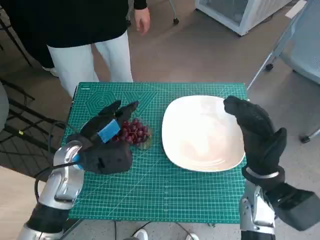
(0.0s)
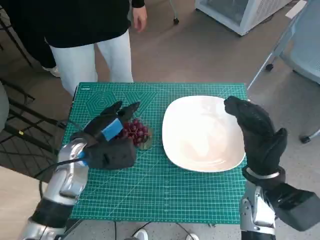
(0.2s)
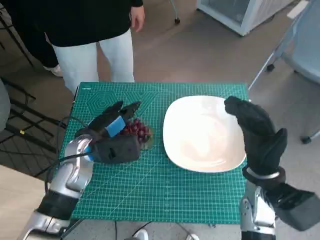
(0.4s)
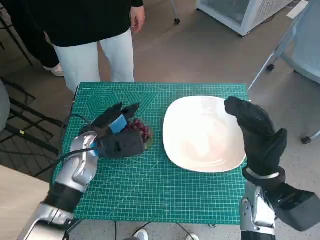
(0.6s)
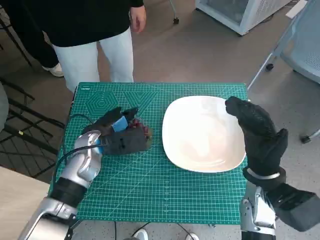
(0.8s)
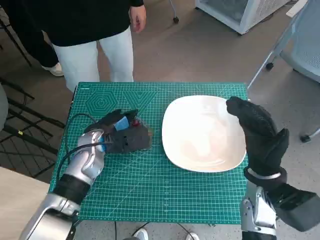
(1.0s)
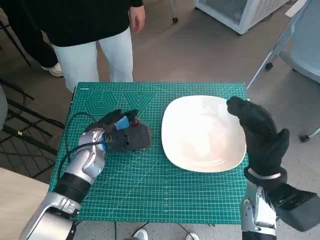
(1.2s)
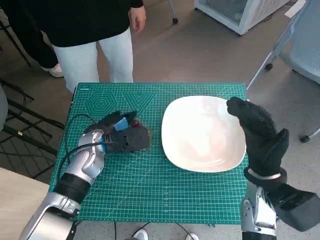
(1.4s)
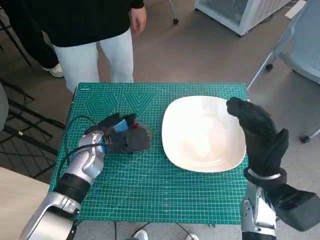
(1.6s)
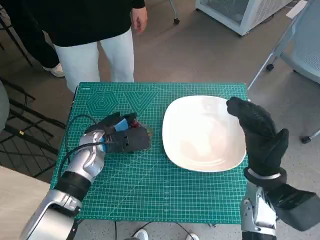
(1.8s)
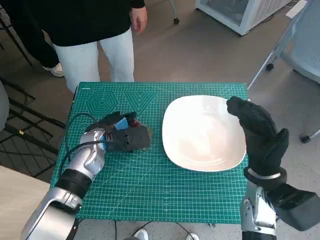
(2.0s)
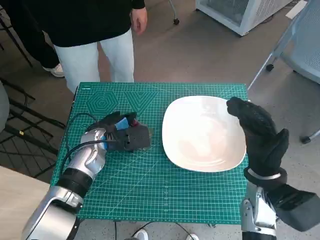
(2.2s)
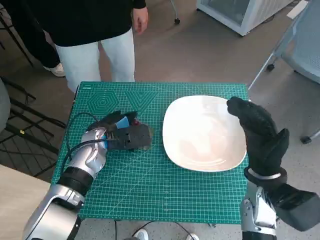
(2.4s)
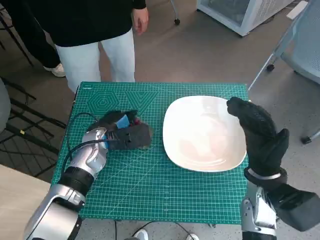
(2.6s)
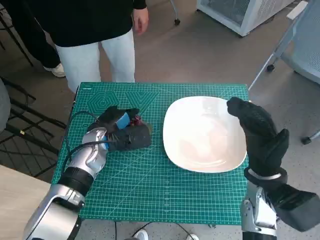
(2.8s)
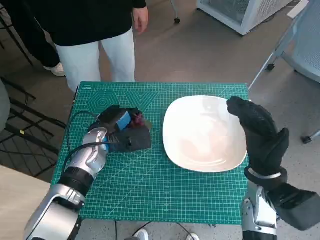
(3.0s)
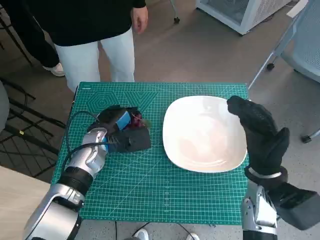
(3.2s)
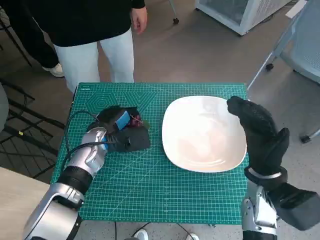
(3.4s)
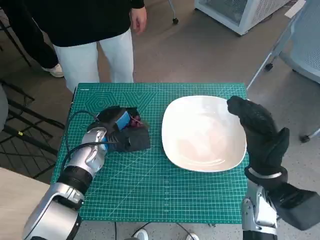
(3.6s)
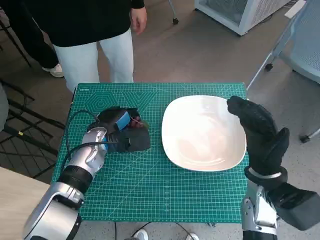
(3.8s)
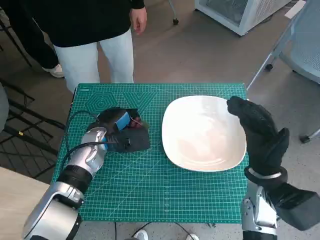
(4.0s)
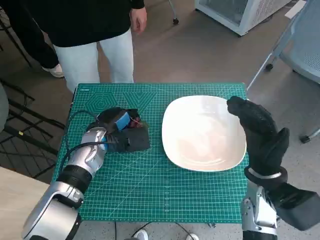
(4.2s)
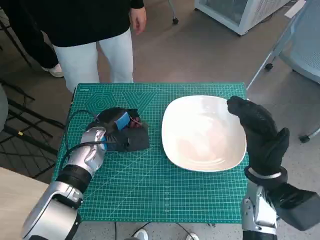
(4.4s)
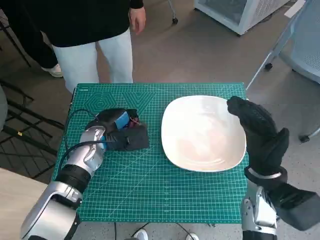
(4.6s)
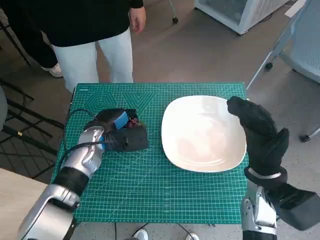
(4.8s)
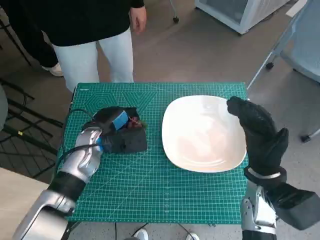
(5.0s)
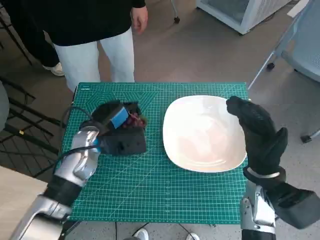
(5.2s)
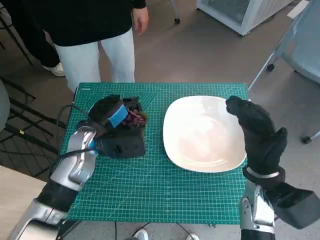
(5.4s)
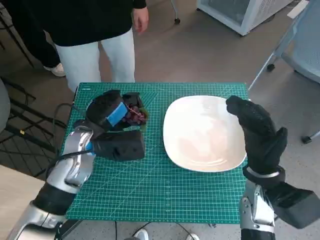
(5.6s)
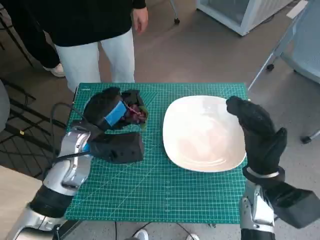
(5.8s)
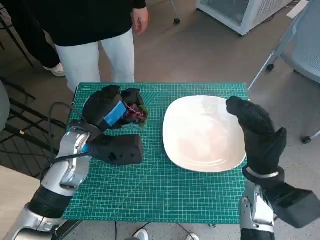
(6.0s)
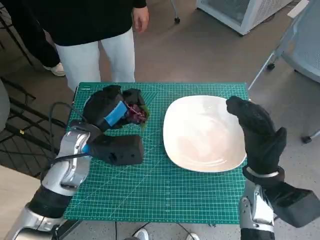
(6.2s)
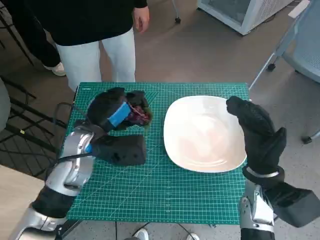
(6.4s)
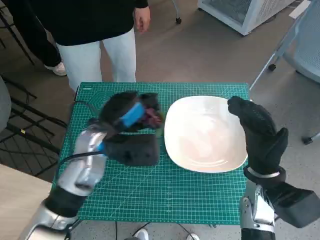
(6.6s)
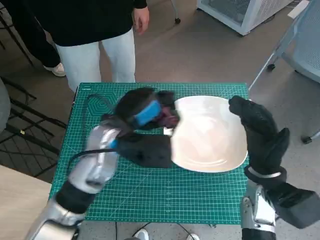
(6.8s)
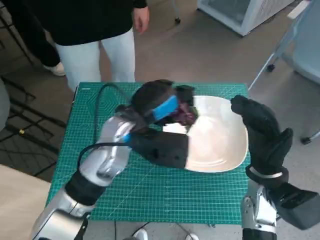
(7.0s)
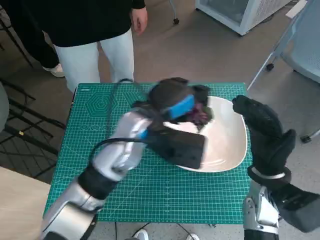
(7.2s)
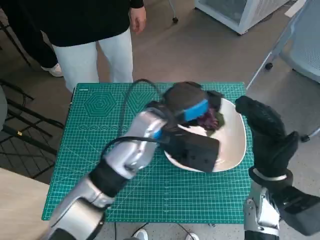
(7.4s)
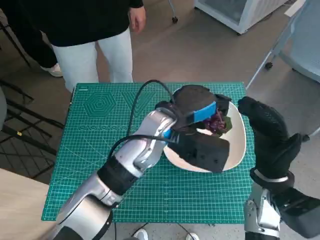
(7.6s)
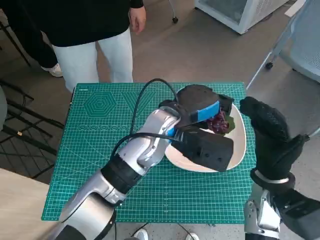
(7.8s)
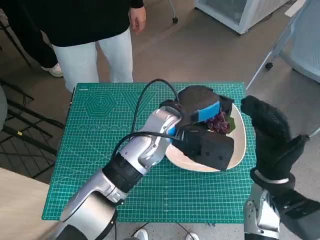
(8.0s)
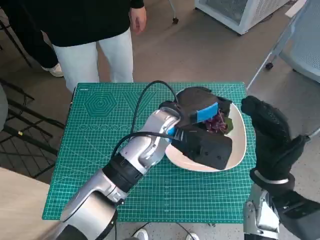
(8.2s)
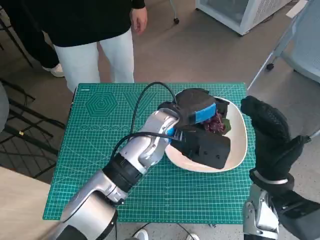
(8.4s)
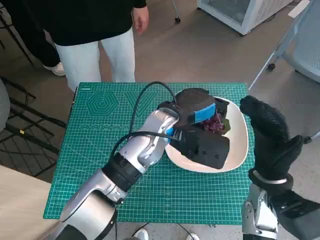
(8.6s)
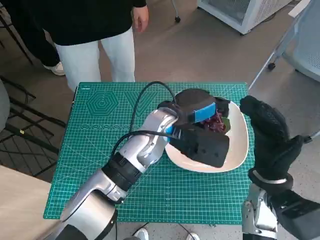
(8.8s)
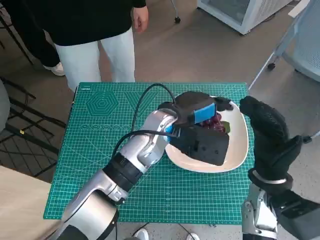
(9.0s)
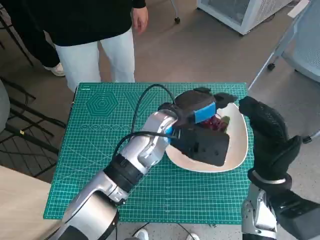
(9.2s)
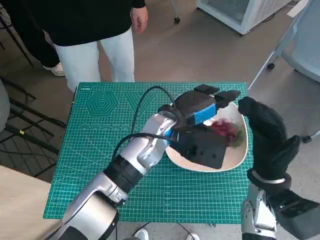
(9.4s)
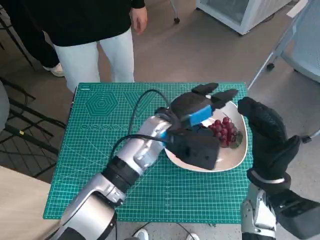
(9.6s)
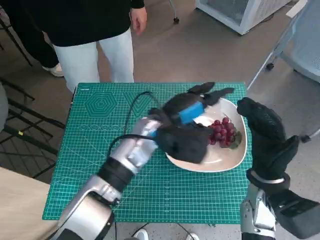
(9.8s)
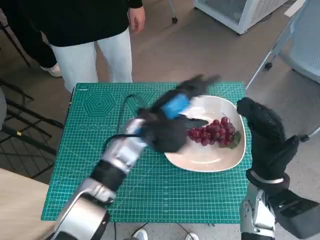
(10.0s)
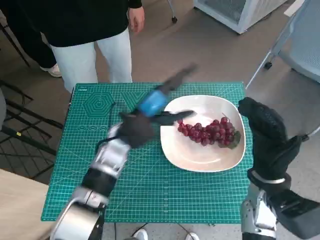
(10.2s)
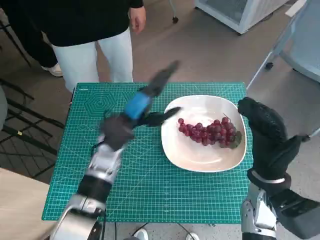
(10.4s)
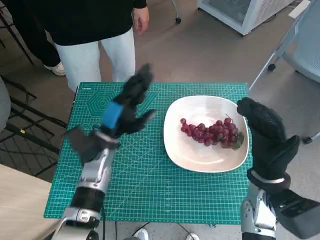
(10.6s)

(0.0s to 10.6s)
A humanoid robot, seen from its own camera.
Task of the whole recording: Pick up the grapes and put them on the plate.
Step, 0.0s - 3.0s: Grasp the grapes with left hand.
Step, 3.2s - 9.6s: Place the grapes in the plate with left hand.
0.0s - 1.6s: The left hand is displaced forward by approximately 5 cm.
1.6s - 3.0s: The hands stay close to where they were, moving slightly.
3.0s - 4.6s: The two hands keep their place.
4.6s - 6.0s: The left hand is displaced upward by roughly 5 cm.
6.0s - 7.6s: The left hand goes some 15 cm to the right.
7.6s - 9.0s: The hands make only small movements.
9.0s - 10.6s: The left hand moves to the left and downward, some 15 cm.

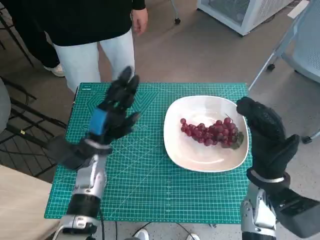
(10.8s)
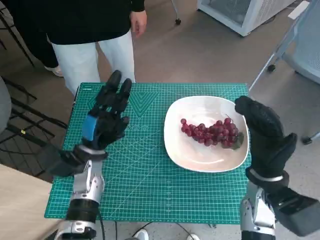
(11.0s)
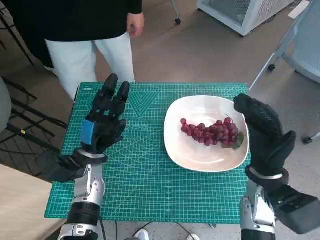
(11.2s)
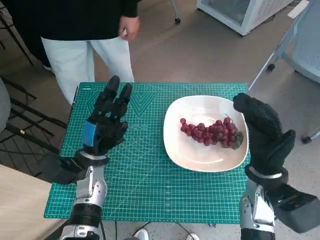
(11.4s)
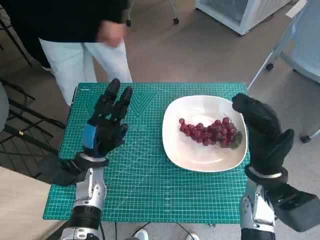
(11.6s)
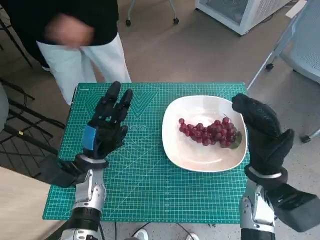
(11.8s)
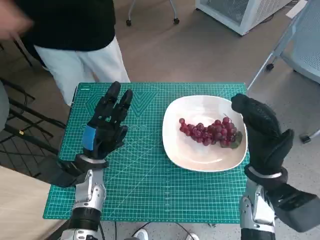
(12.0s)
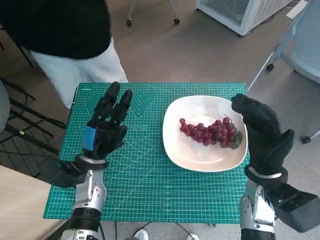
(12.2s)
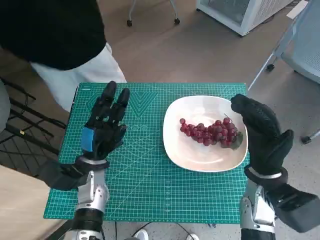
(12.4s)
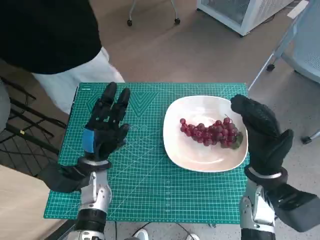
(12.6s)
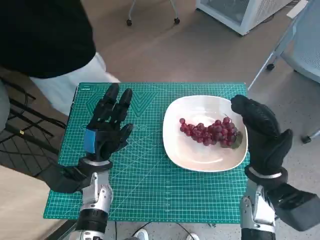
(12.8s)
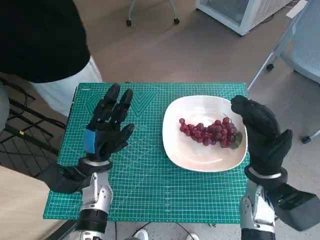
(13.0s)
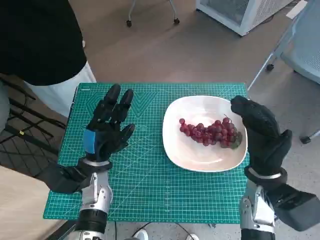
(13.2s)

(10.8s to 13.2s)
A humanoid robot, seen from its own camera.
Task of the whole recording: Pick up the grapes and put them on the plate.
10.8s - 13.2s: The hands move only a little.

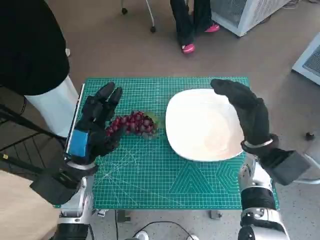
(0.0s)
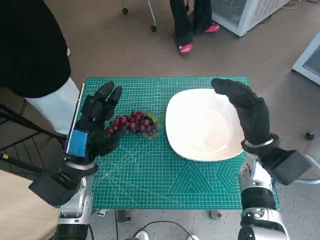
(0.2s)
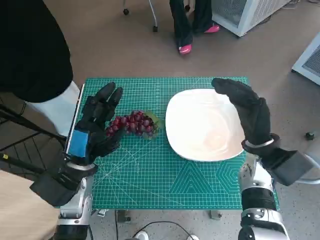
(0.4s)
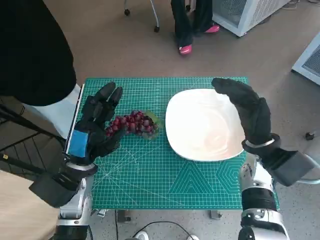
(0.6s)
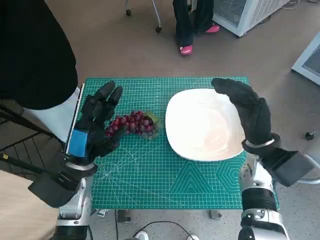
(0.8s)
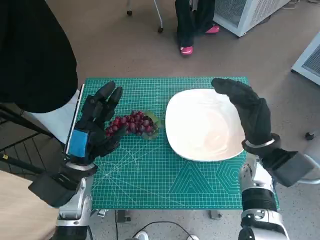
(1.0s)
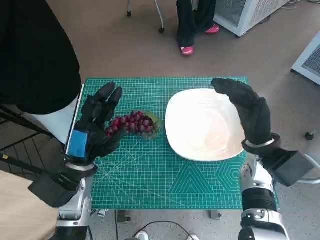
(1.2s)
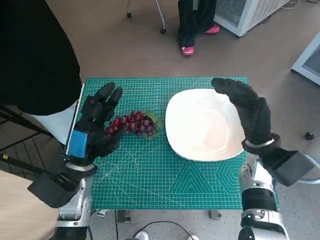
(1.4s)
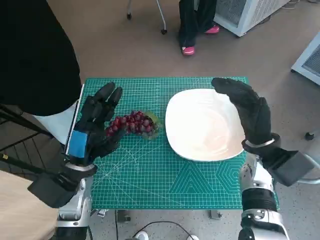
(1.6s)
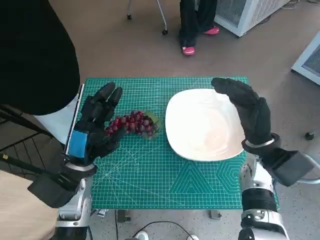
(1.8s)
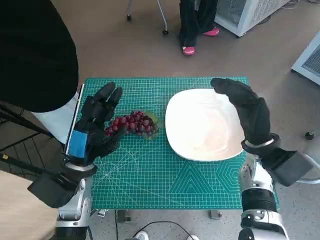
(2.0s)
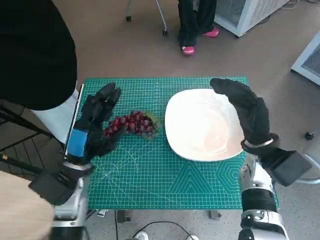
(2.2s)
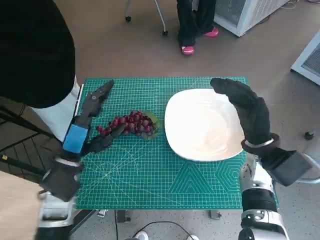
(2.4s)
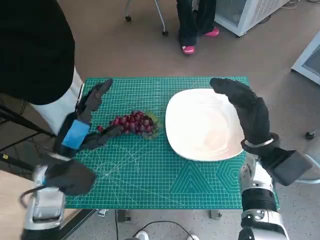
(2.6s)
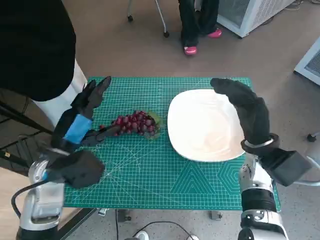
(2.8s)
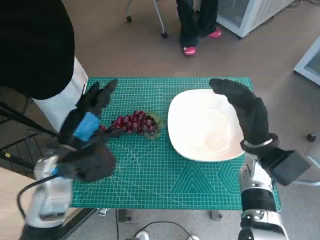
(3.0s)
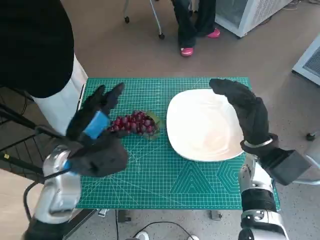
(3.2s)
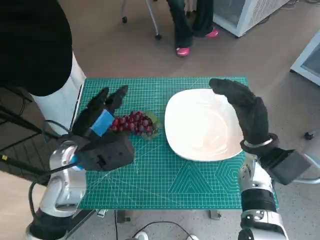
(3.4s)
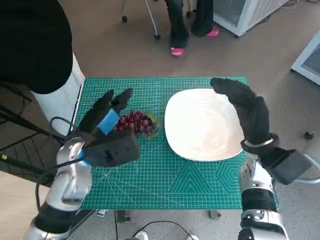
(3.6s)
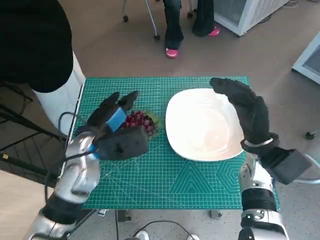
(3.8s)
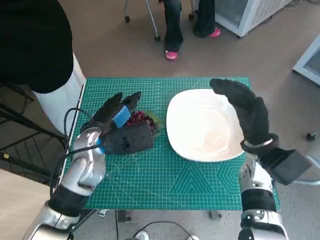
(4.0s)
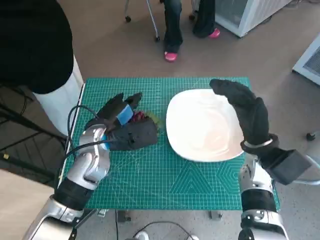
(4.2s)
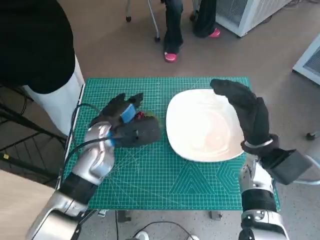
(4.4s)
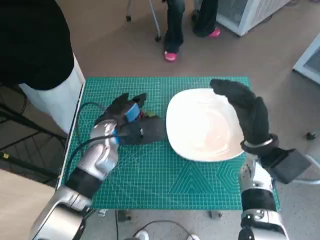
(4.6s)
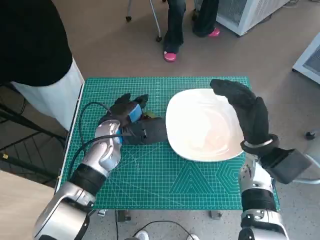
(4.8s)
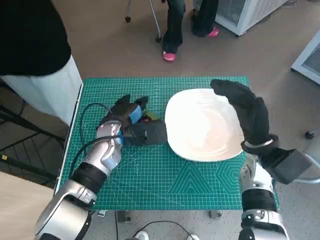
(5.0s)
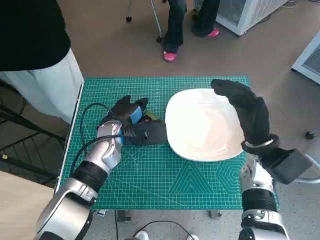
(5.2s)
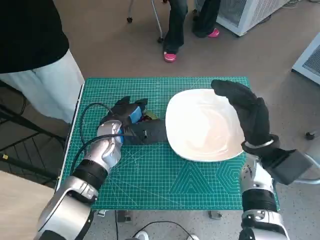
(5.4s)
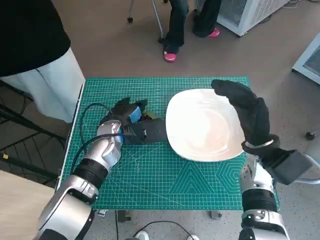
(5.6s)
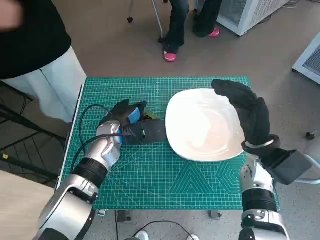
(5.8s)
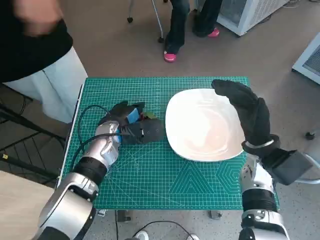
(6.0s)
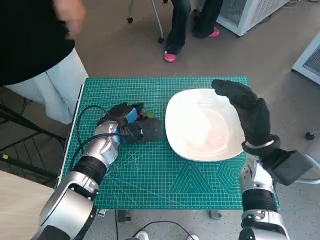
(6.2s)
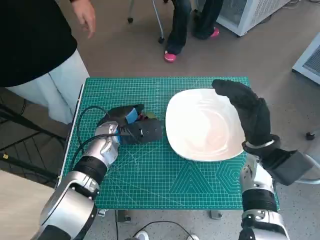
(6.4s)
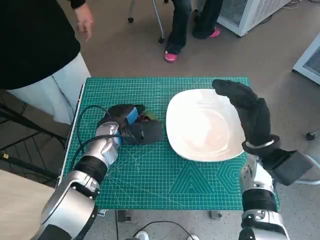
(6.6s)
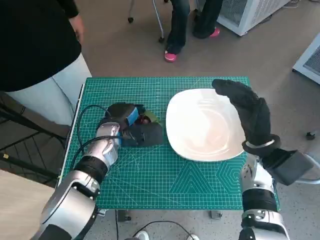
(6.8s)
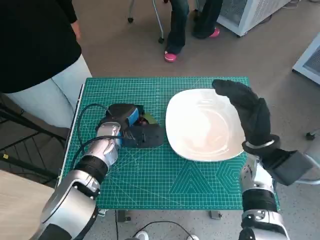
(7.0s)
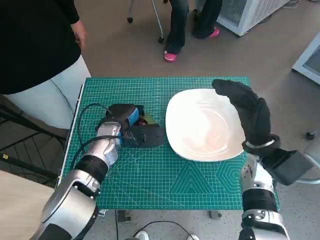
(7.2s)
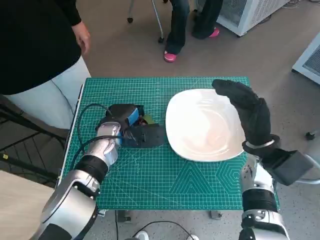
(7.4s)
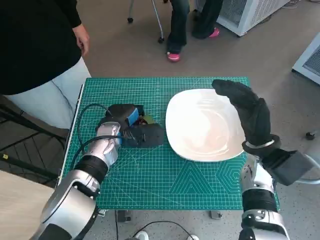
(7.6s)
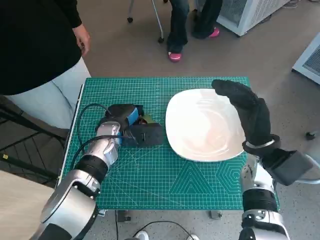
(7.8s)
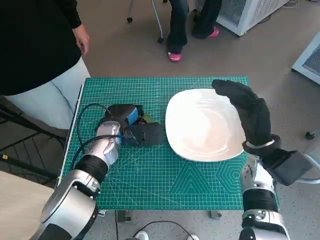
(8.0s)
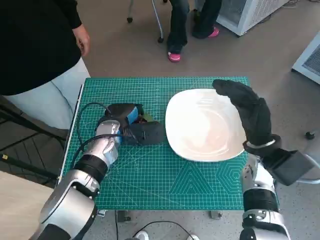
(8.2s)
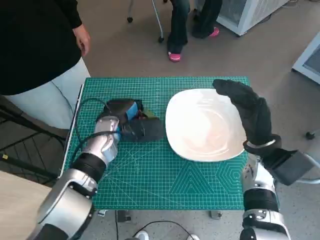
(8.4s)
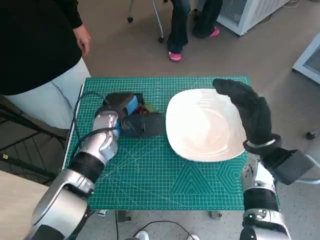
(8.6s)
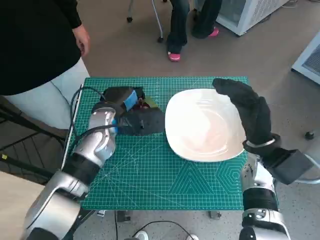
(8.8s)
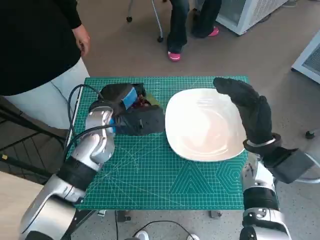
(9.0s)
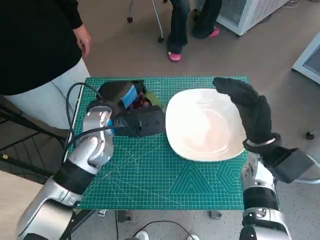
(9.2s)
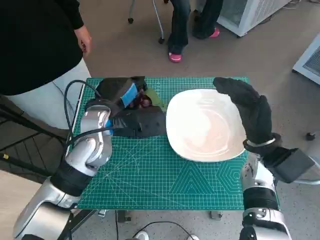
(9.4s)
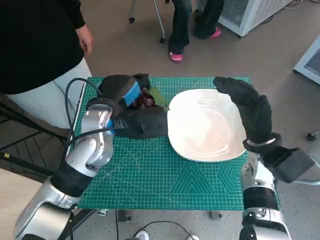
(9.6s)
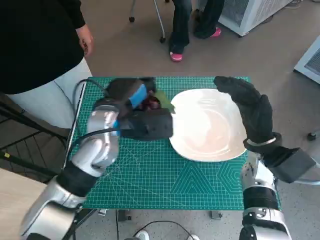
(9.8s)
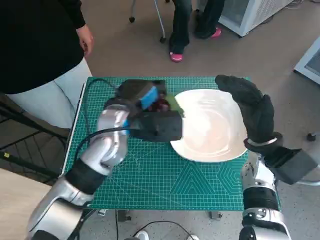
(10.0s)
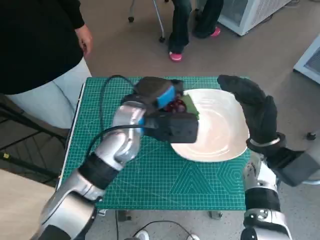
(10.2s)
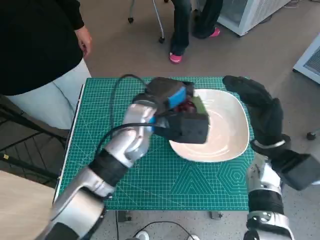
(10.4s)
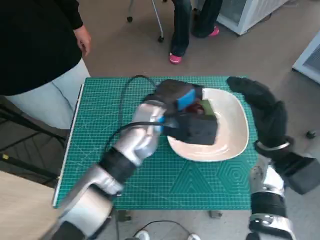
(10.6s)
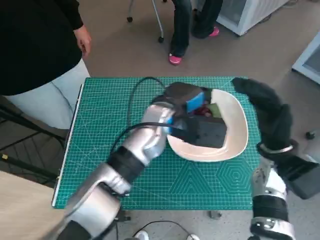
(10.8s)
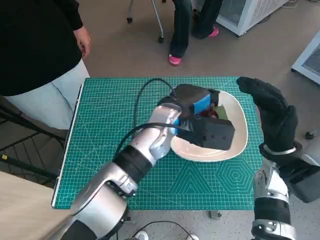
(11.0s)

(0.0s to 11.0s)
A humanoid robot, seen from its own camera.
Task of the whole recording: Pick up the grapes and put them on the plate.
Step, 0.0s - 7.6s: Grasp the grapes with left hand.
1.6s - 3.2s: The left hand shifts about 5 cm upward.
3.2s - 4.8s: The left hand heads forward and to the right, covering roughly 10 cm.
4.8s - 7.8s: The hands make only small movements.
7.8s - 9.4s: The left hand travels upward by about 10 cm.
9.4s - 11.0s: The left hand moves to the right, some 10 cm.
